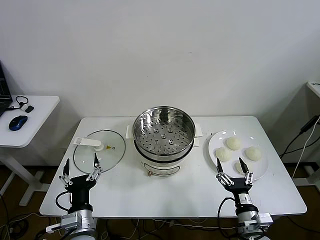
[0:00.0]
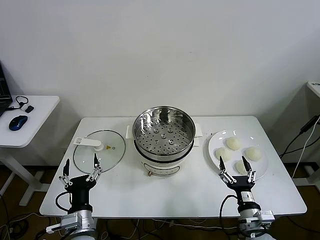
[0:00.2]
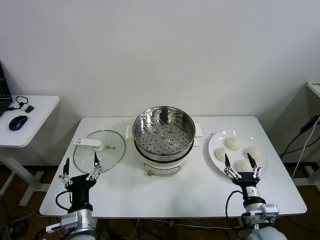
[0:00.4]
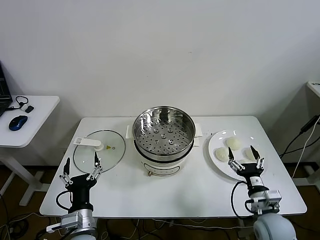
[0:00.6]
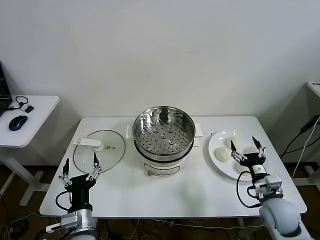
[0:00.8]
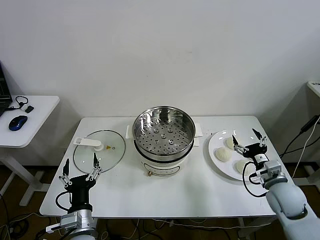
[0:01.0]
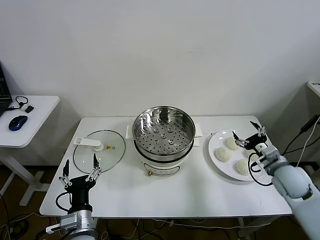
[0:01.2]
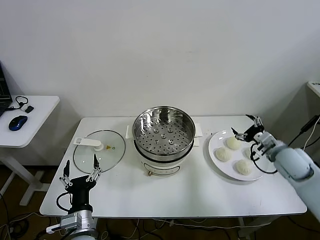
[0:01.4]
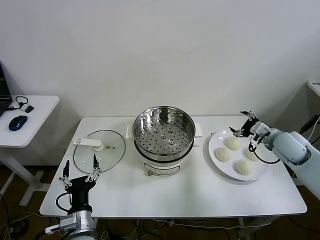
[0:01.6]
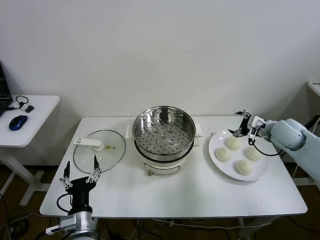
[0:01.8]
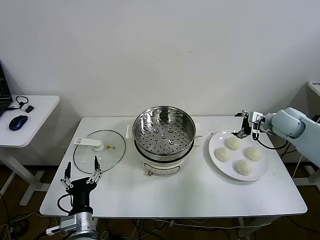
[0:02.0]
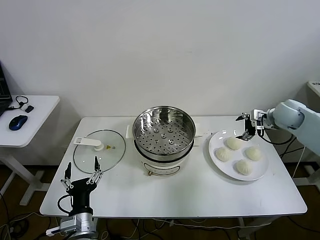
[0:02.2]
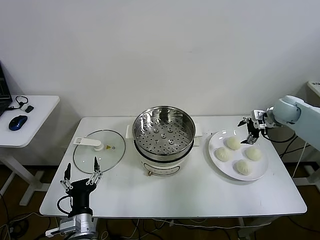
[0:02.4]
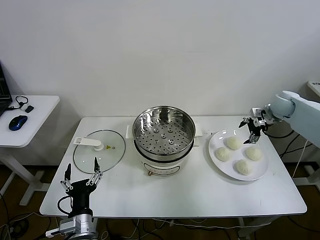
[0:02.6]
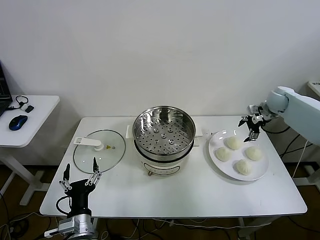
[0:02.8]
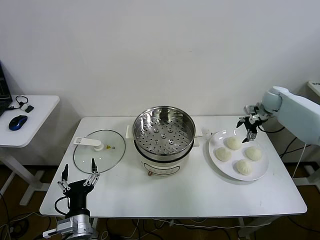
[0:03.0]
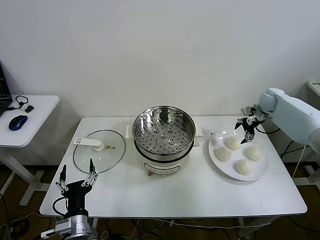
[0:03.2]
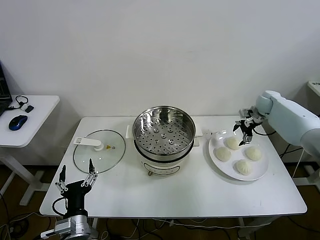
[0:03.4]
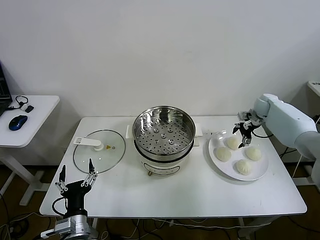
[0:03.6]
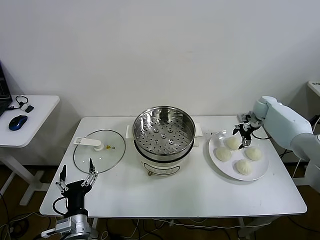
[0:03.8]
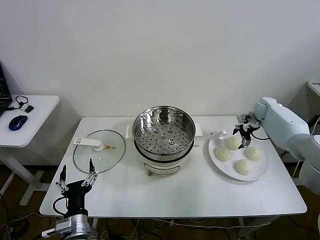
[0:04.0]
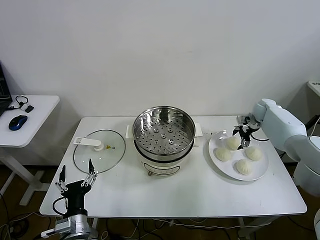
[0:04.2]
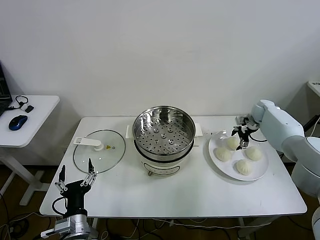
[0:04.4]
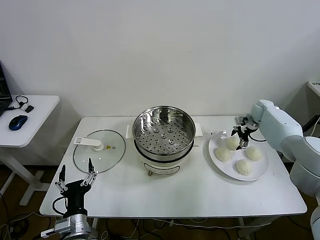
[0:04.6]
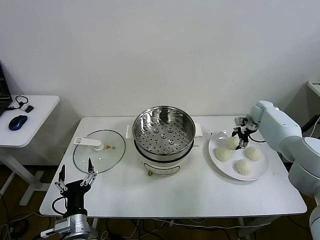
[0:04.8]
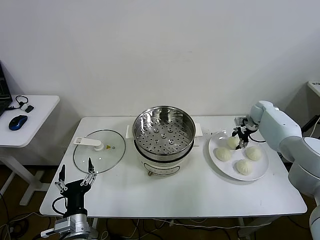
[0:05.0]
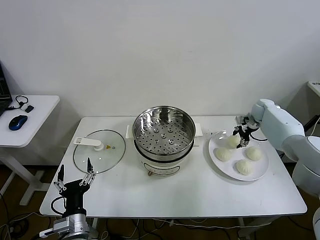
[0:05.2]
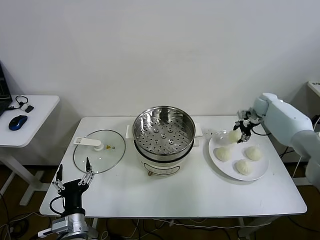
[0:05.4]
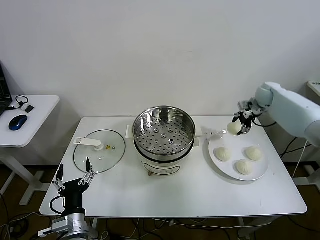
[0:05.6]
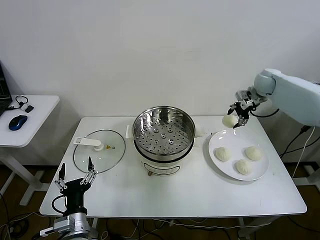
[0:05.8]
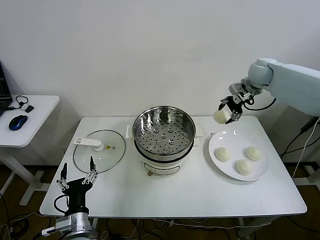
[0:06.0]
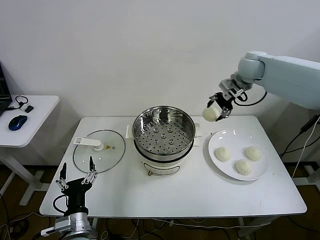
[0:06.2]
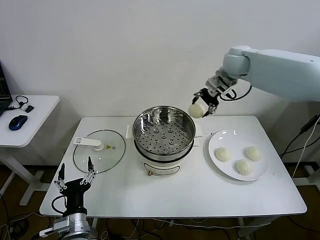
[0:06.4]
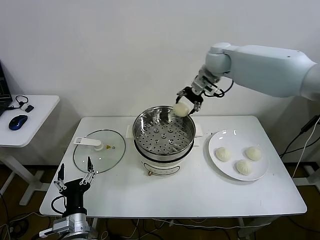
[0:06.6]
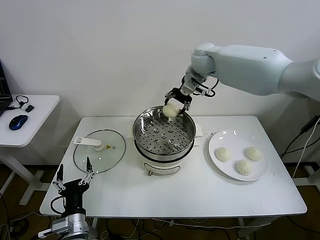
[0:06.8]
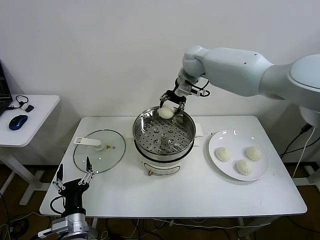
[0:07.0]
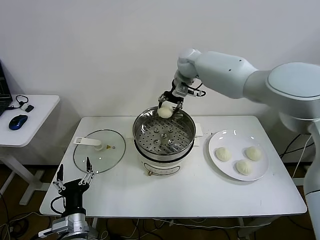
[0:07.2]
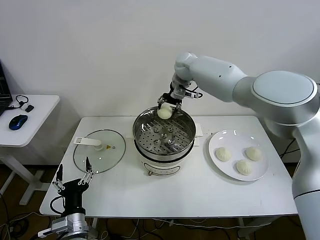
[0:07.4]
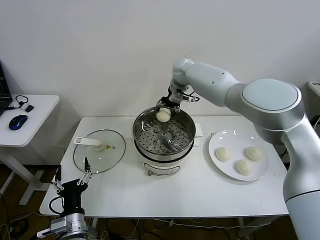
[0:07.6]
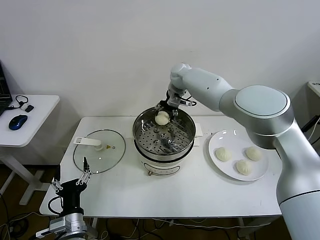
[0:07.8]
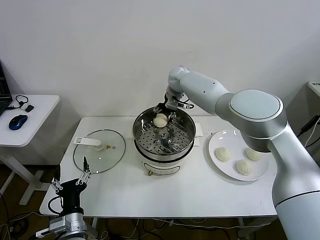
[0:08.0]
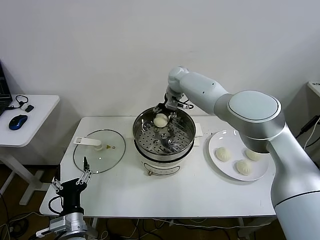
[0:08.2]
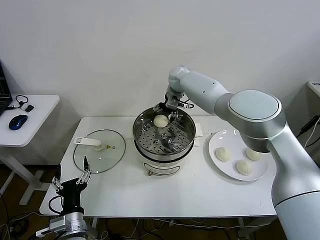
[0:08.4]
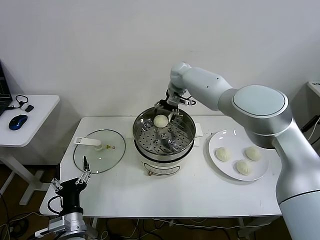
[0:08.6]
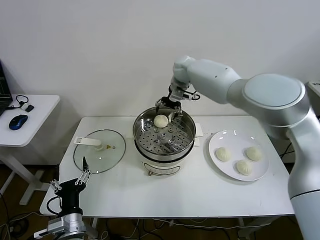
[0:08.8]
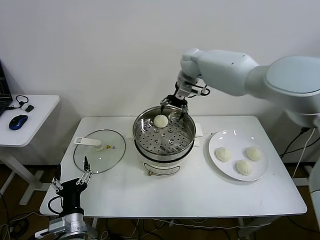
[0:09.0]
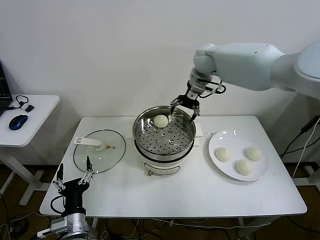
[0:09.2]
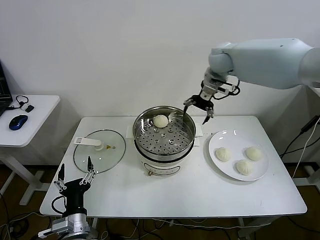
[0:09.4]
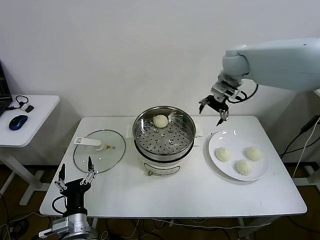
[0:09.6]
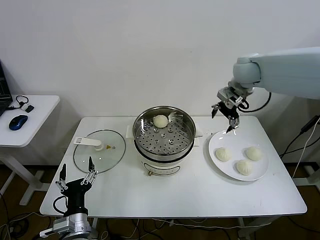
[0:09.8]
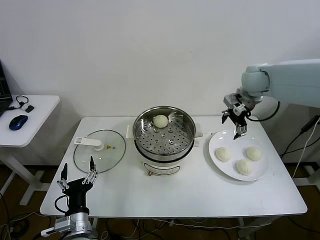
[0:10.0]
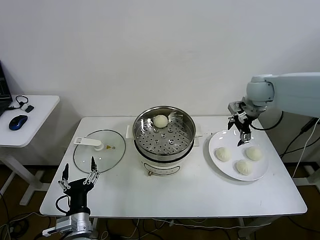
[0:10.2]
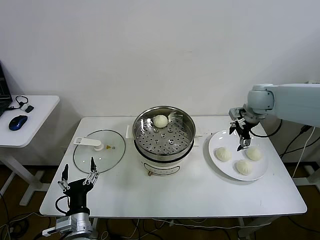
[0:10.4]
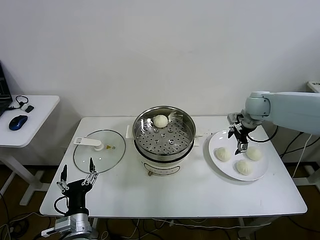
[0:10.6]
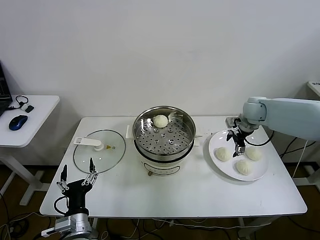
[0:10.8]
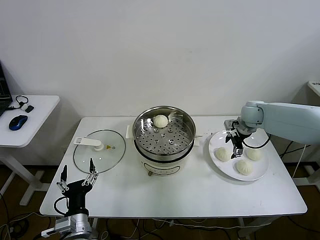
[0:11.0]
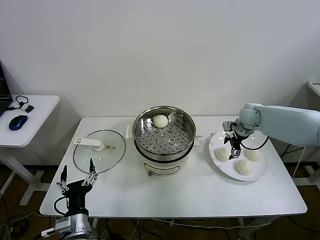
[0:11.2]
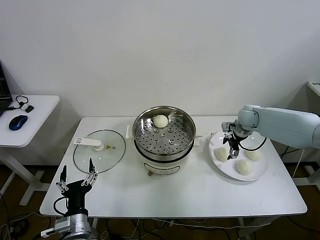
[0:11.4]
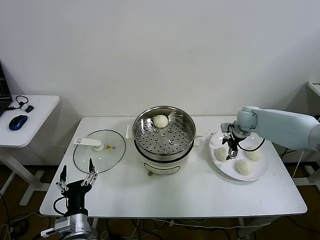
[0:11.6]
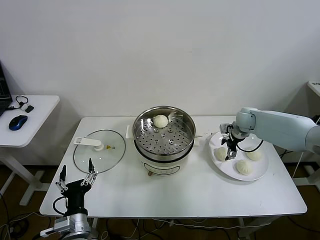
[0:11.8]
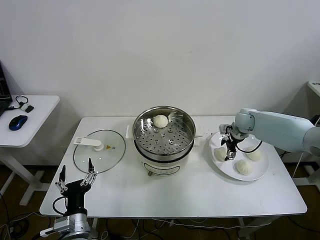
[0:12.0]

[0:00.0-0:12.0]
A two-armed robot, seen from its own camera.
Step, 0:00.0 to 0:05.0: Grasp the baozi in the plate with right gripper.
Step, 0:05.4 to 0:08.6: Place the baozi on the steamer with right gripper.
0:01.6 to 0:03.0: The right gripper is displaced forward by roughly 20 cm.
0:03.0 to 0:04.4: The right gripper goes approximately 5 cm downward.
0:04.4 to 0:06.0: The right gripper travels upward and to the left by approximately 25 cm, and closes.
0:06.0 to 0:07.6: The right gripper goes some 25 cm to the left.
0:07.6 to 0:09.0: The right gripper heads upward, covering approximately 5 cm, and opens.
0:09.0 to 0:10.4: The right gripper goes roughly 25 cm to the right, backward and downward.
0:10.4 to 0:12.0: The right gripper moves downward, some 10 cm.

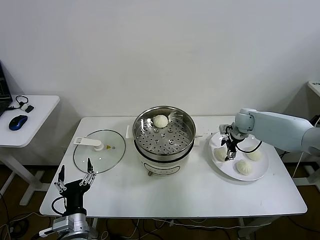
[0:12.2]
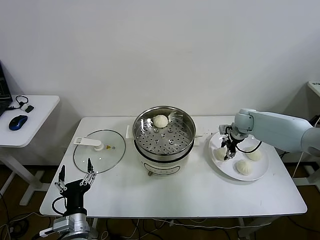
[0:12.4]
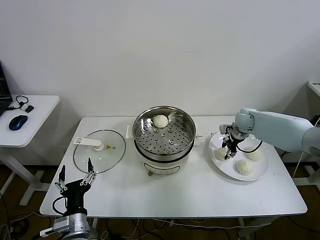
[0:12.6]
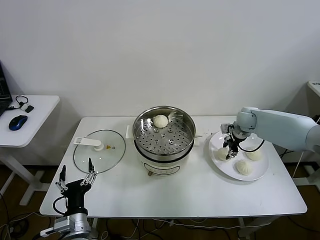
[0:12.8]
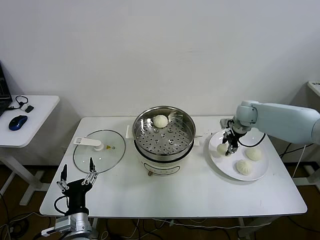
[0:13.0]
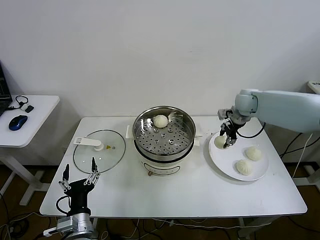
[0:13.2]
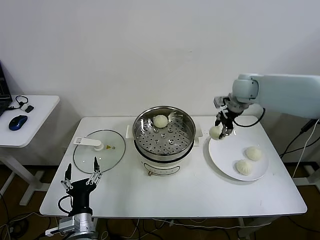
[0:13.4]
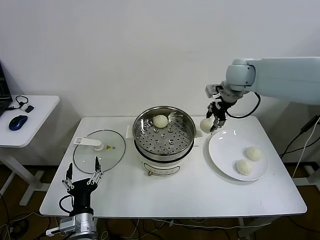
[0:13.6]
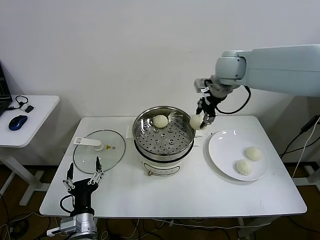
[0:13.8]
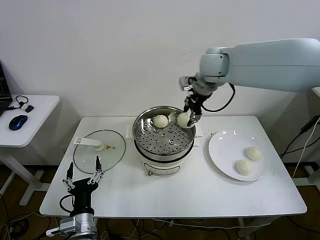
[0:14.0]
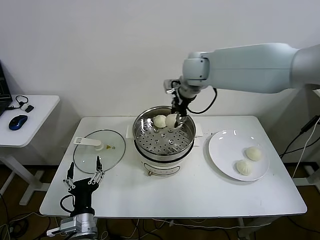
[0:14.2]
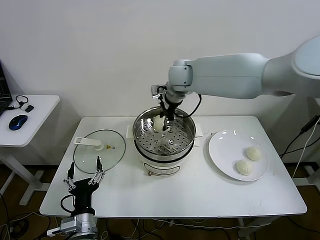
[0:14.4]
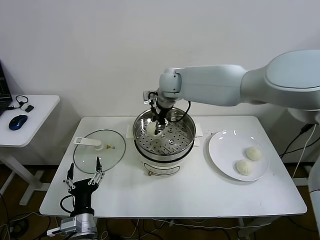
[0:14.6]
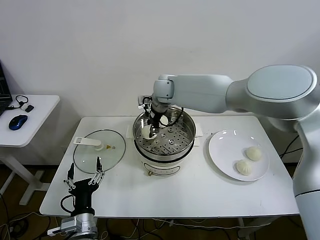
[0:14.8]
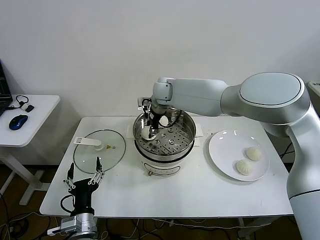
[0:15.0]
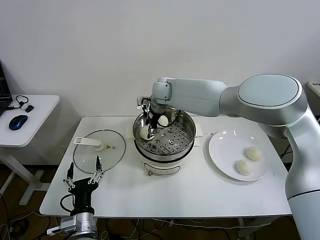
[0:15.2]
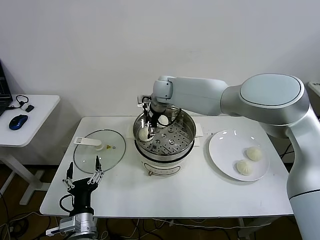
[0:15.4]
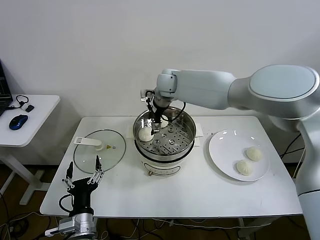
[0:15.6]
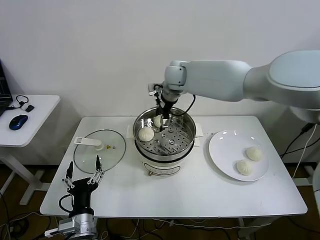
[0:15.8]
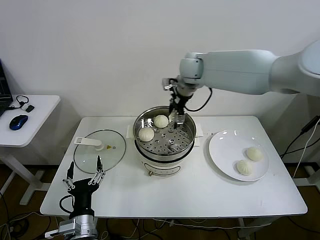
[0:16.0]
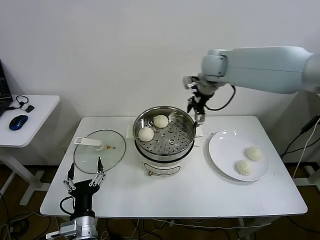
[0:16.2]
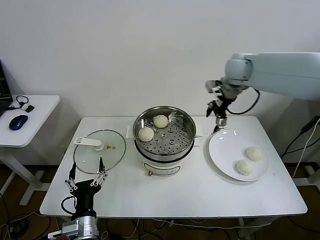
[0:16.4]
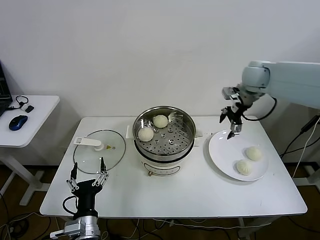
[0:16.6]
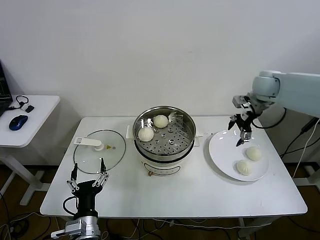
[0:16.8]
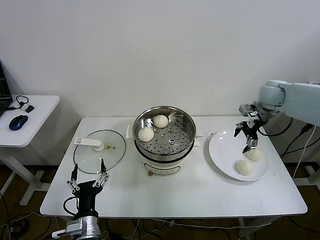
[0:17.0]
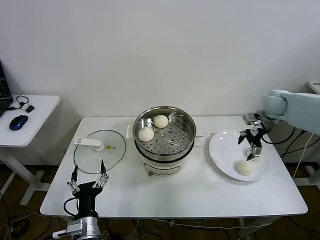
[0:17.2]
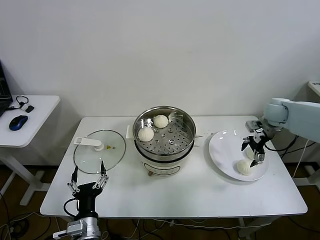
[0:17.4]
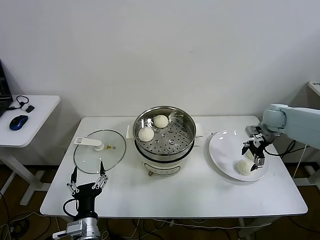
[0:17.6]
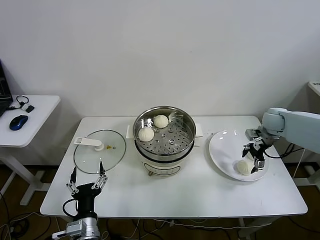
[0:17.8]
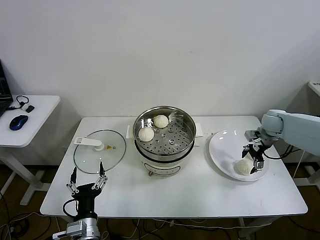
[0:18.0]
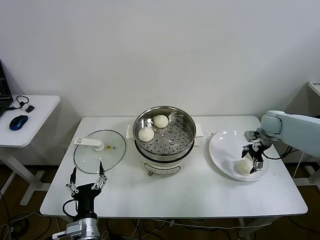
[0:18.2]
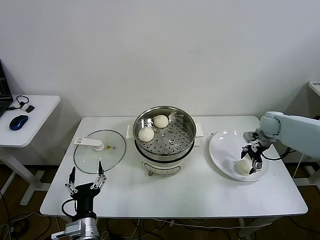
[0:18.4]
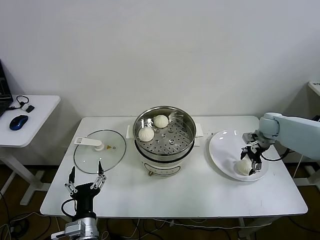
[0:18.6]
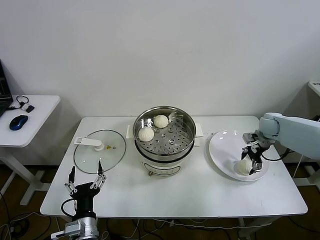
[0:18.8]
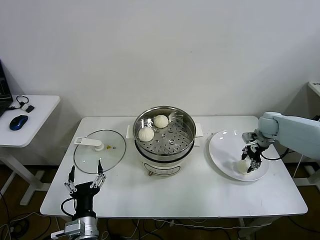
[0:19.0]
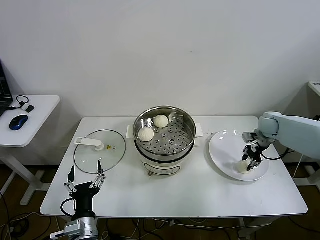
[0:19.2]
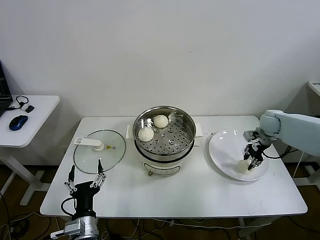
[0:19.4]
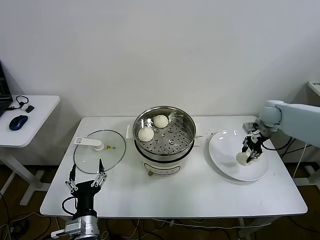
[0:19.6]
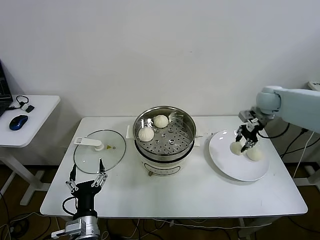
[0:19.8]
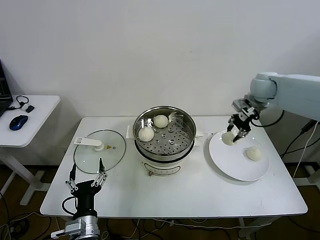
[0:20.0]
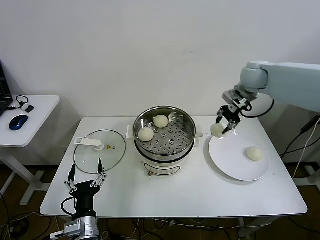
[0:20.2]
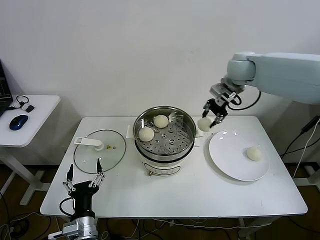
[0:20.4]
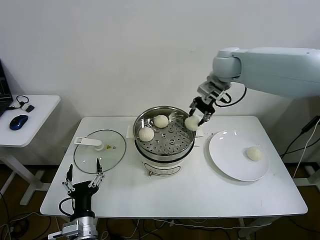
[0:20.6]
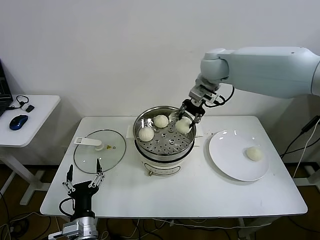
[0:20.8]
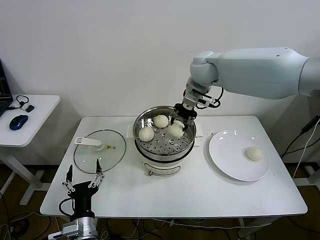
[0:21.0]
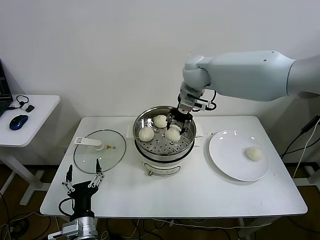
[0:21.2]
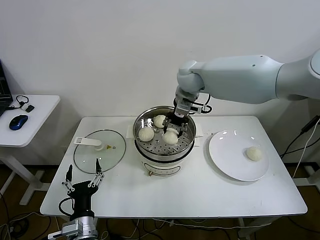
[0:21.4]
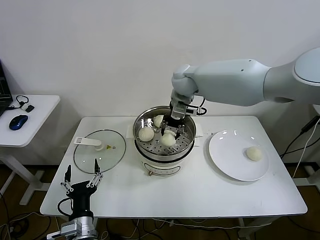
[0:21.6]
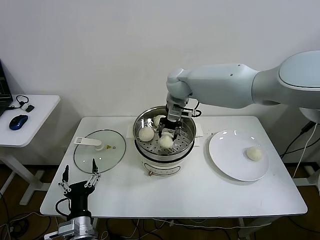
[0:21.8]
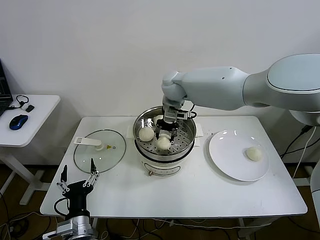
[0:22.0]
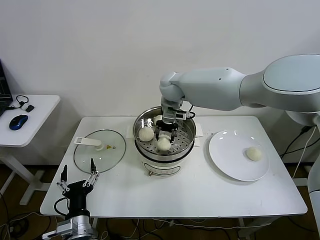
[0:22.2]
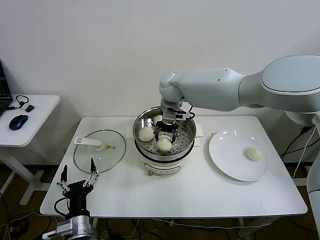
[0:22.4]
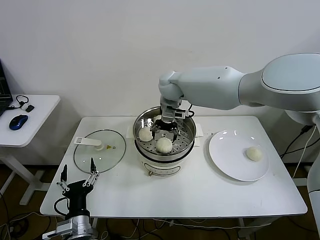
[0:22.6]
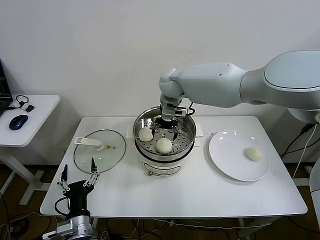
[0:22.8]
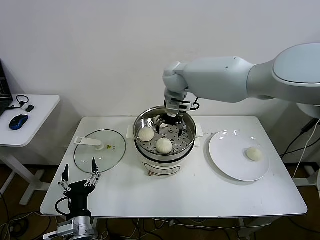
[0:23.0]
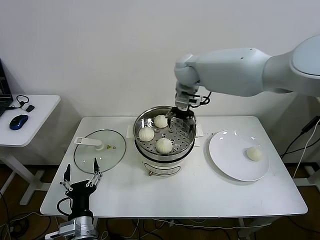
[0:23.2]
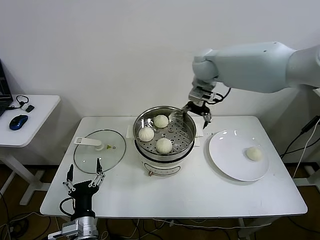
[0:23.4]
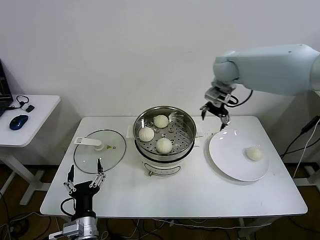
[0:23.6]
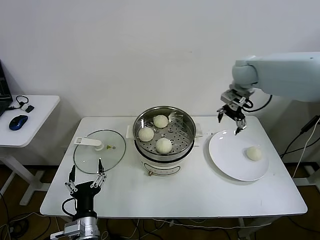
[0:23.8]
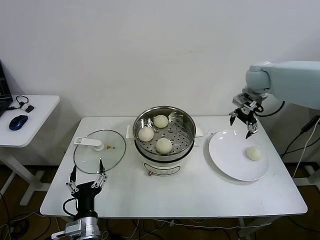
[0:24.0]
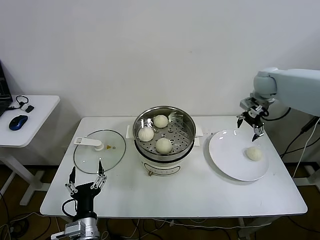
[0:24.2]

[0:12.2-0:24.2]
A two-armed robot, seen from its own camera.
Step, 0:12.8 to 0:15.6: Place the baozi on the steamer with right gripper.
Step, 0:15.8 to 0:18.8: Grasp the baozi in the plate with right gripper.
Step, 0:19.0 to 0:22.6: Place the baozi on the steamer with right gripper.
0:12.2 to 0:13.8: The right gripper travels upward and to the left by approximately 30 cm, and closes.
0:13.8 to 0:15.2: The right gripper heads to the left and downward, covering about 20 cm.
0:15.2 to 0:16.6: The right gripper moves to the right, approximately 30 cm.
0:16.6 to 0:18.2: The right gripper moves downward and to the right, some 20 cm.
0:18.2 to 0:19.8: The right gripper is displaced upward and to the left by some 10 cm, and closes its fingers.
0:19.8 to 0:21.2: The right gripper goes roughly 25 cm to the left.
0:21.2 to 0:22.6: The right gripper heads to the left and downward, covering some 10 cm, and opens.
0:22.6 to 0:24.2: The right gripper is displaced to the right by approximately 35 cm.
